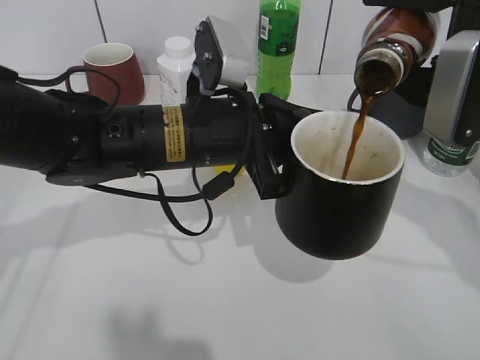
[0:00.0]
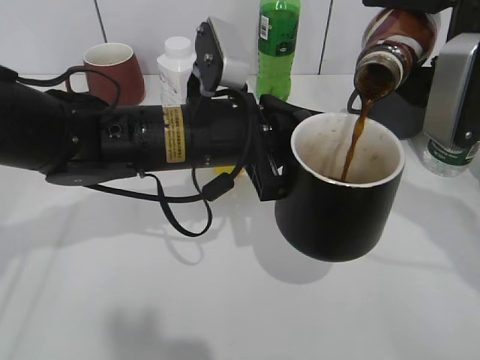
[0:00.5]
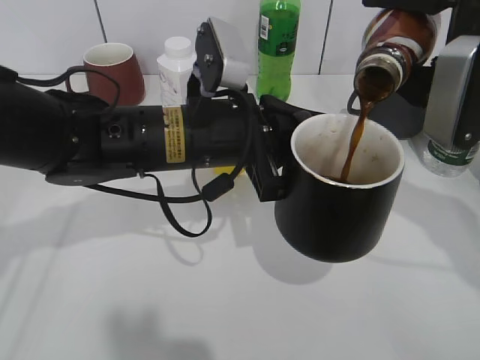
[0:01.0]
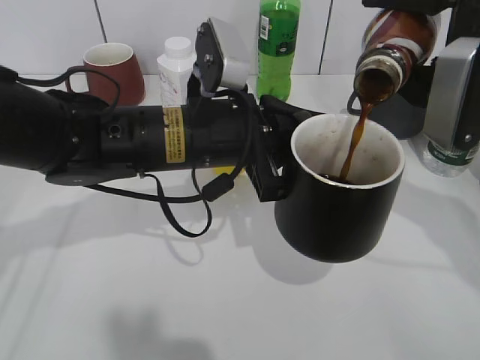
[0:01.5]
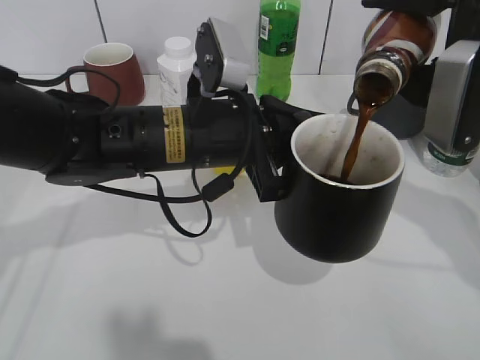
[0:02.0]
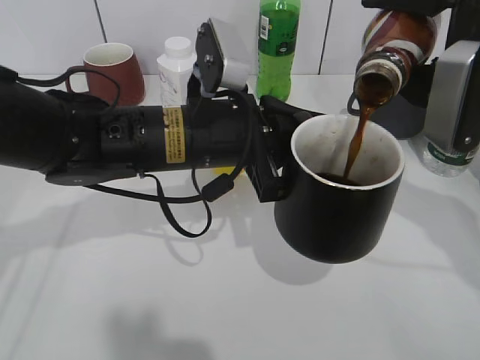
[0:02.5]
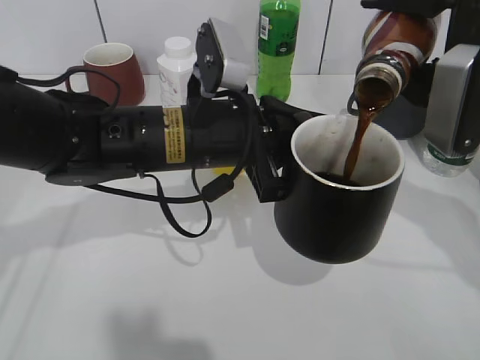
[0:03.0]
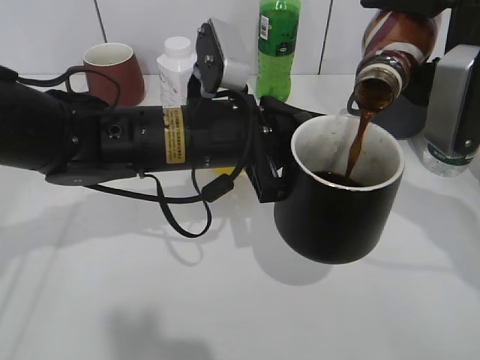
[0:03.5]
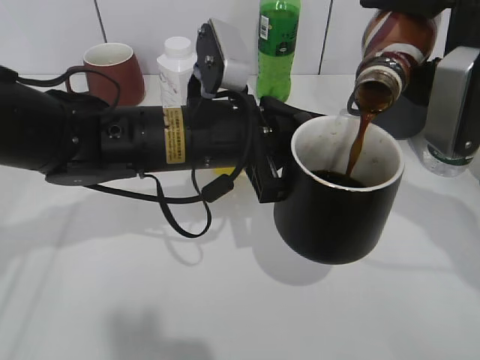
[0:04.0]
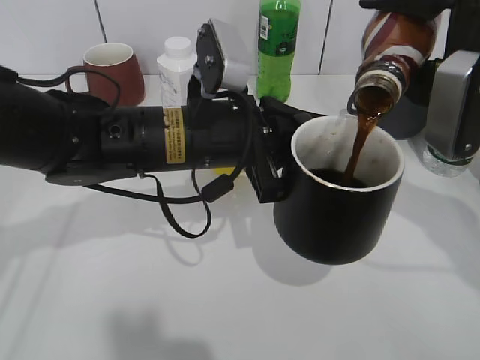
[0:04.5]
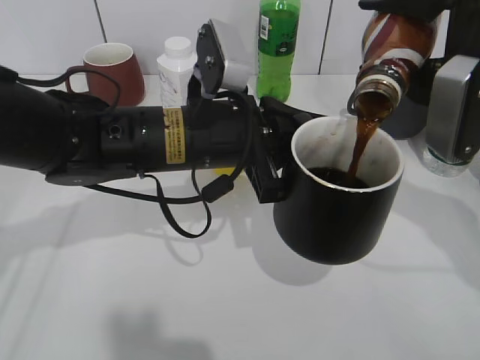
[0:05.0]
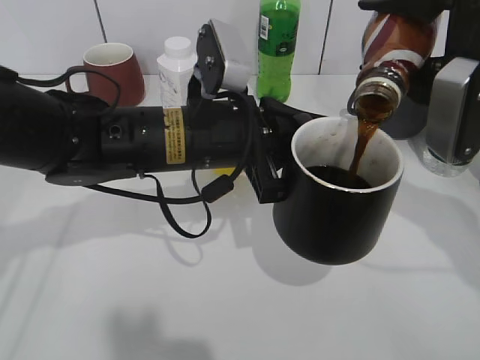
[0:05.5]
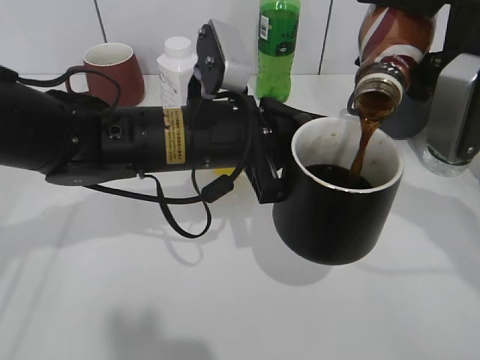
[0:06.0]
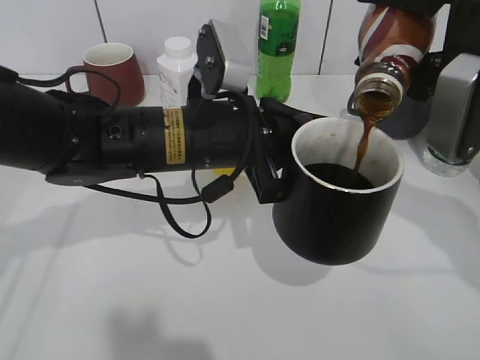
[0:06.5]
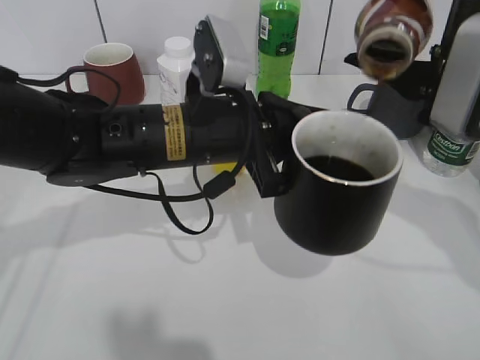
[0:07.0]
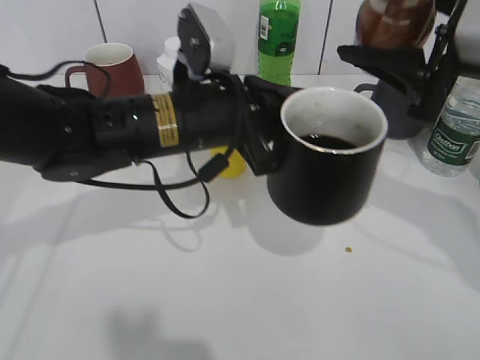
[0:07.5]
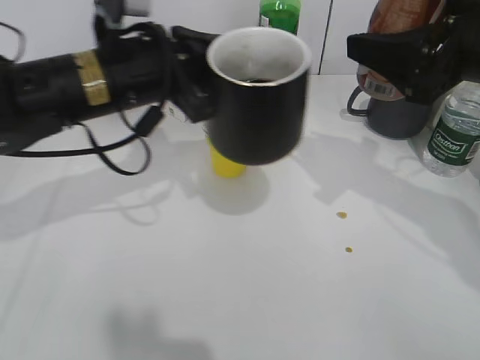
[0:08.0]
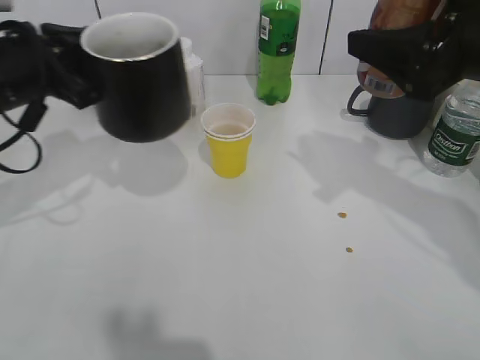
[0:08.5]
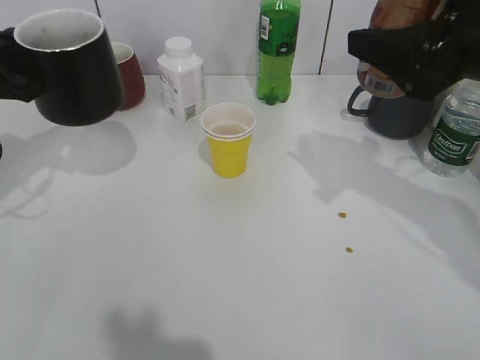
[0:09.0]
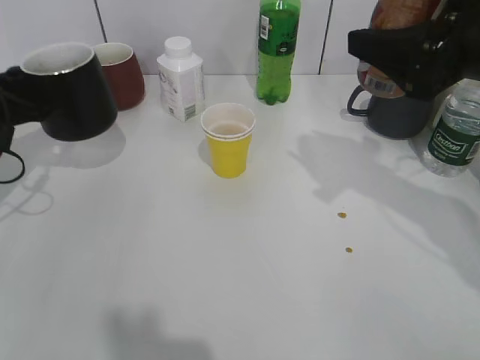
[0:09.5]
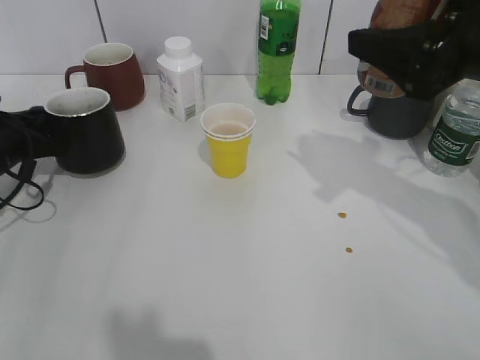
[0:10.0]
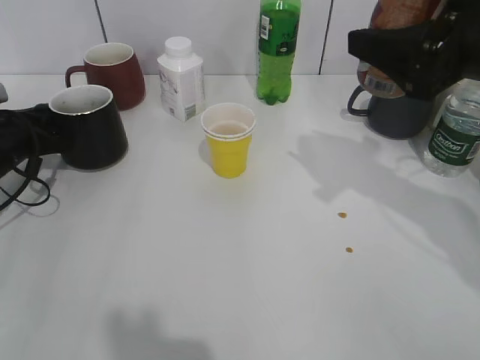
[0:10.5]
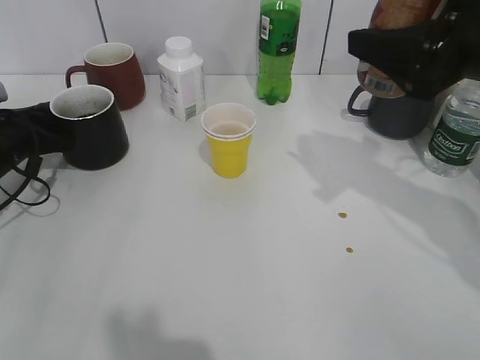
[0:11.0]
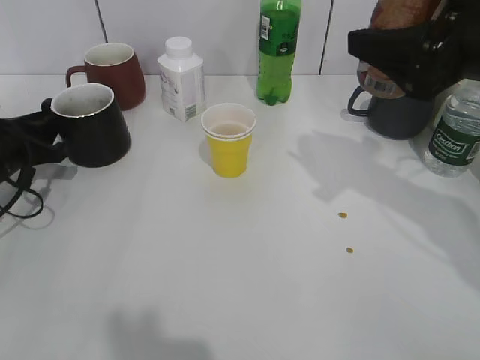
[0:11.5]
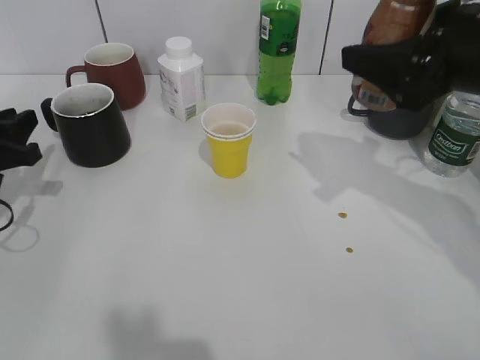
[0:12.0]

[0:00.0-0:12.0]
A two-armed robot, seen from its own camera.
Step, 0:00.0 to 0:07.0: Pour the coffee from bottle to cup with right gripper.
Step, 0:07.5 to 0:11.5: Place the black cup on the table with left gripper.
0:00.0 to 0:02.0: Both grippers stay put.
0:02.0 to 0:04.0: Neither gripper changes place.
0:04.0 to 0:06.0: There are only small adjustments of the grippers.
0:06.0 to 0:08.0: The left gripper goes roughly 5 cm to the left.
0:08.0 to 0:10.0: The left gripper travels to the left and downward by approximately 25 cm.
0:10.0 to 0:12.0: The left gripper moves backward, about 5 cm, and opens up.

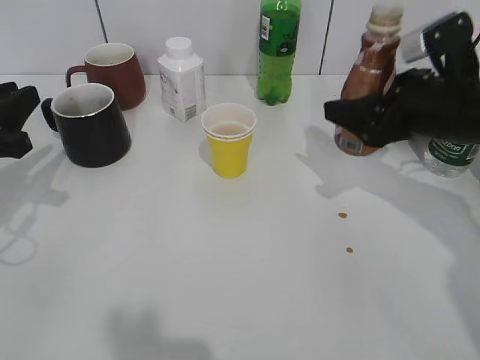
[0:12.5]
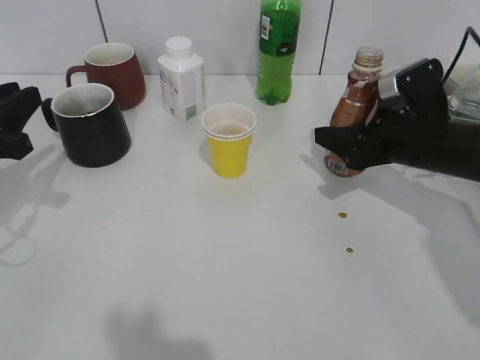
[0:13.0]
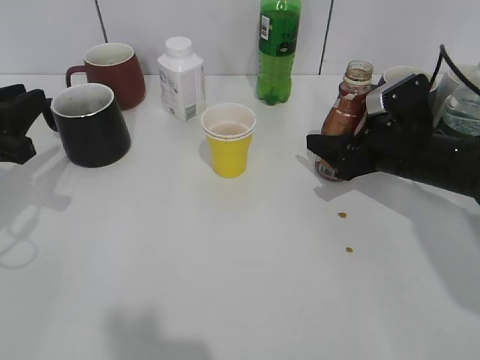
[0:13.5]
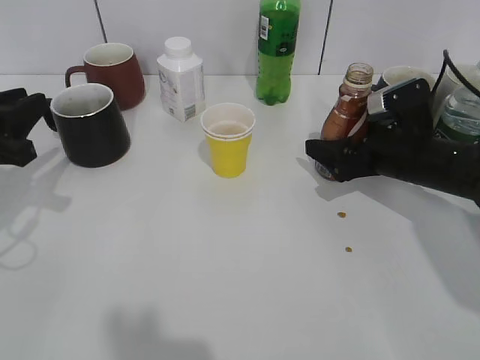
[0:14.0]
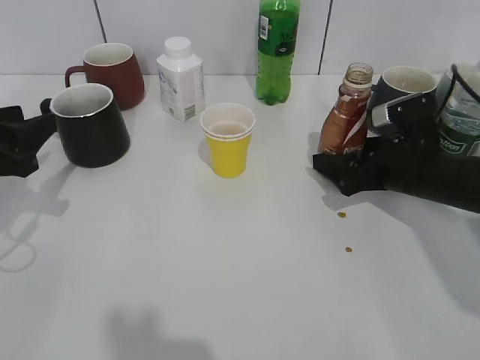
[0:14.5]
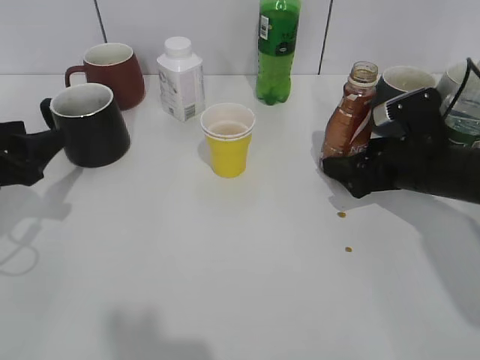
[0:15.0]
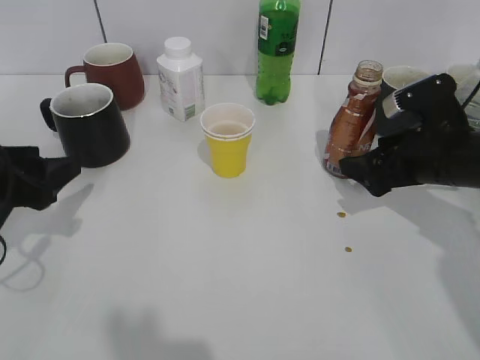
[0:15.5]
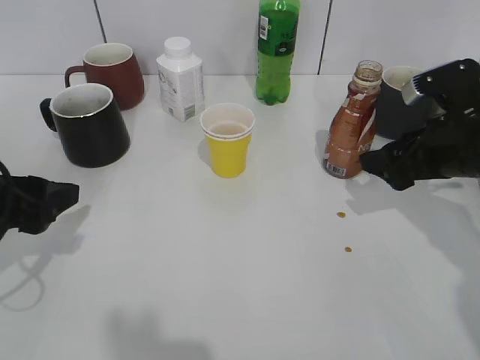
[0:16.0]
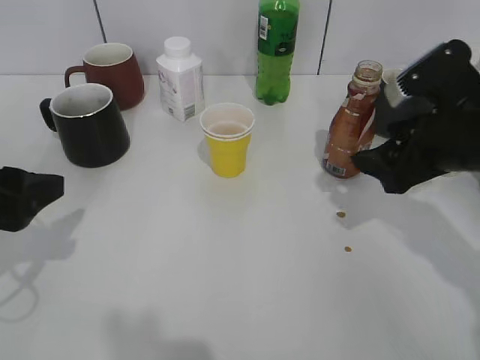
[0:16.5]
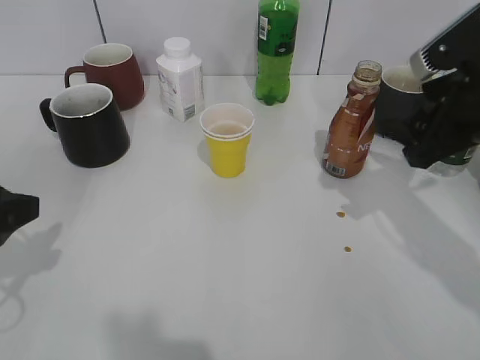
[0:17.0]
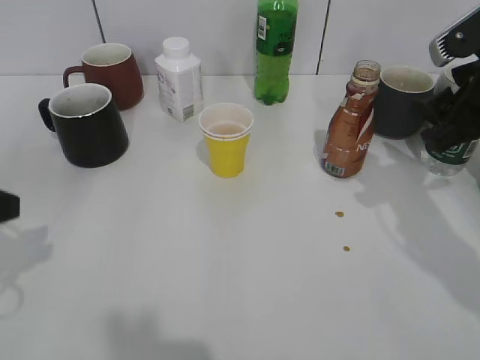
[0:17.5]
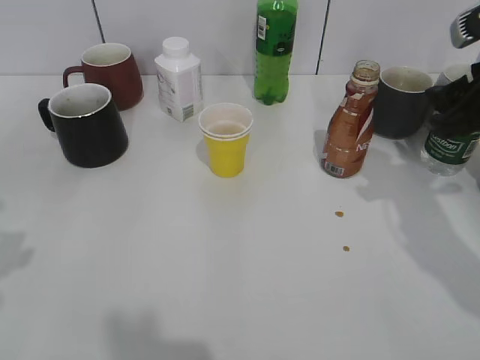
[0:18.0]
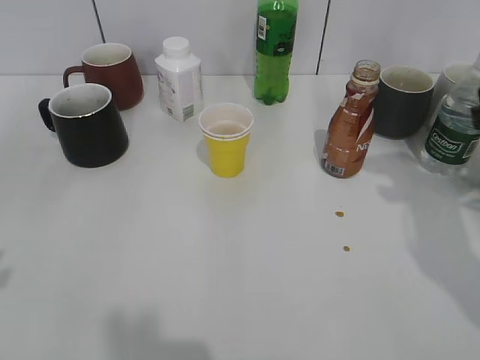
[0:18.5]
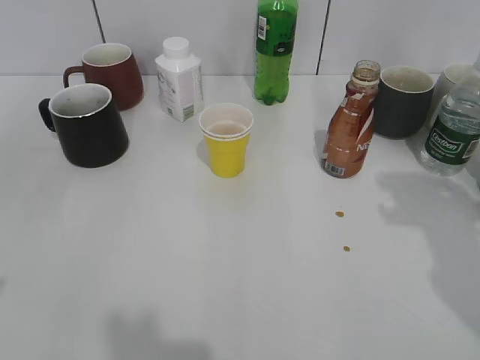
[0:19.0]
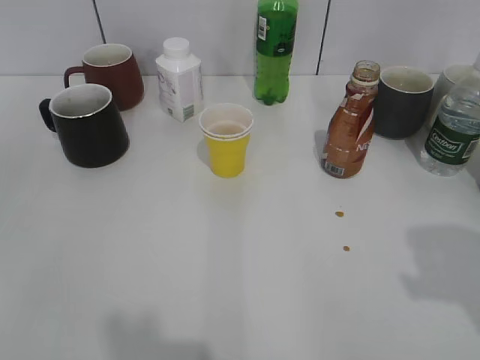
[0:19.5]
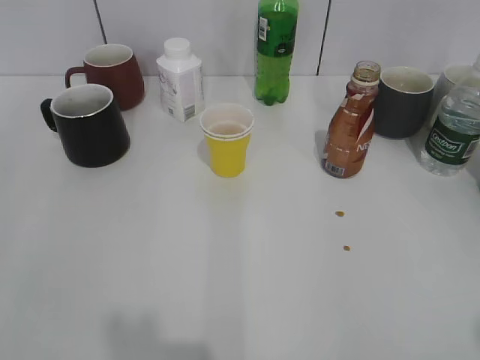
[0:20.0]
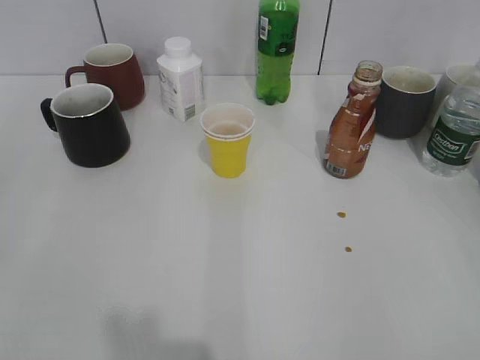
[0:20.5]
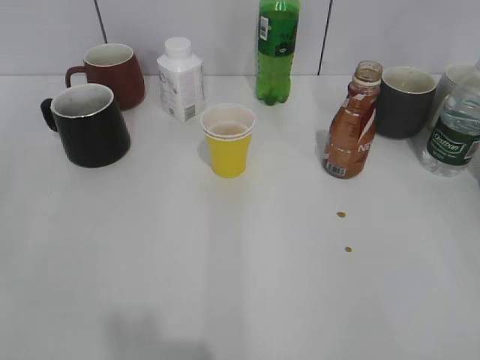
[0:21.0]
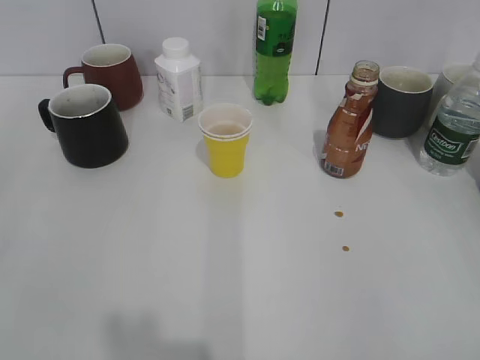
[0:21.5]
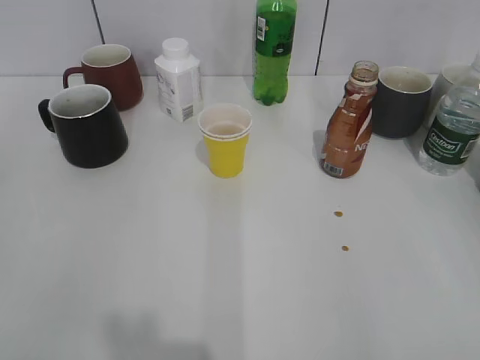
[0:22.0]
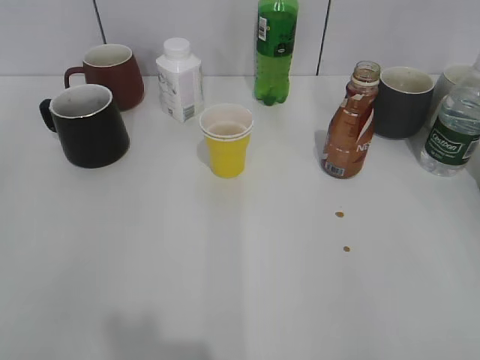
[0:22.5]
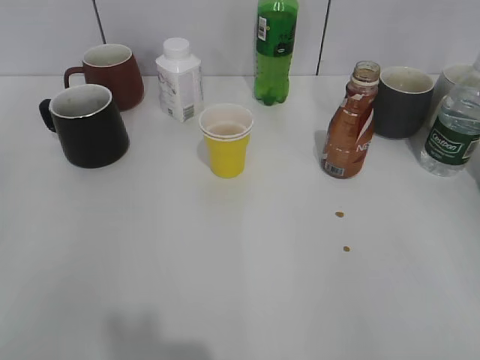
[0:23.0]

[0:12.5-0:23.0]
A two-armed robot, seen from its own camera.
Step, 0:12.5 to 0:15.0: Place the coffee bottle on the table with right gripper.
0:12.5 to 0:14.5: The right gripper goes approximately 10 cm downward, and opens, while the left gripper opens its fingers.
0:14.5 to 0:16.5: The left gripper moves backward, some 5 cm, while the right gripper goes some 10 cm upward and backward, and closes.
0:16.5 to 0:19.0: The right gripper is displaced upward, backward and to the right by roughly 15 cm, and closes its fingers. The left gripper goes approximately 10 cm upward and backward.
0:19.0 to 0:21.0: The right gripper is displaced backward by approximately 20 cm; the left gripper shifts approximately 10 cm backward.
0:21.0 to 0:23.0: The grippers make only small movements.

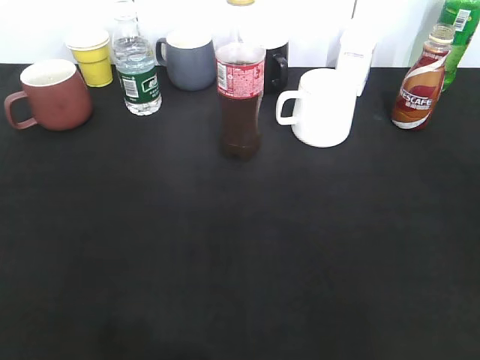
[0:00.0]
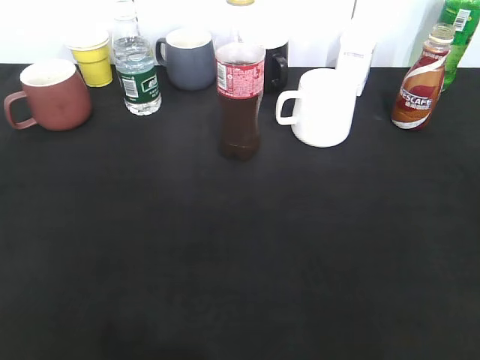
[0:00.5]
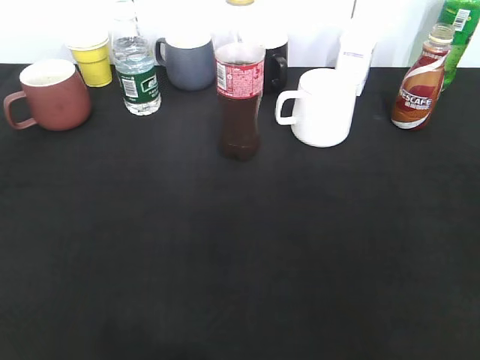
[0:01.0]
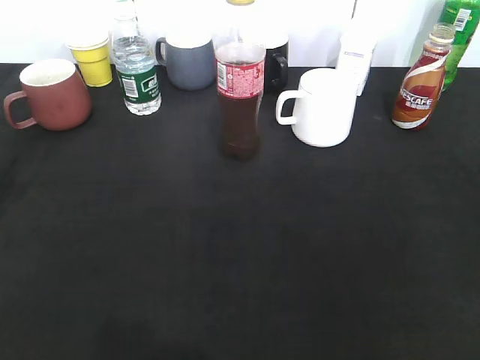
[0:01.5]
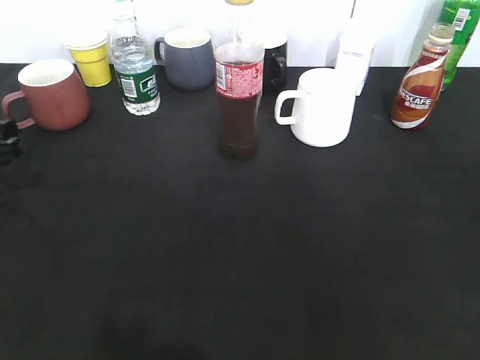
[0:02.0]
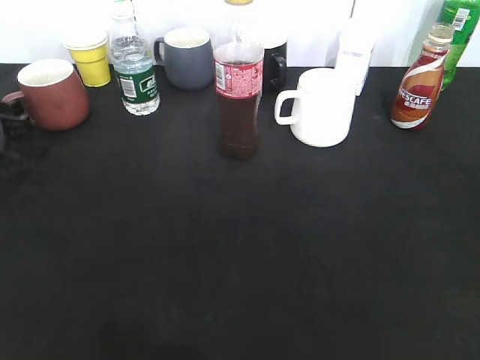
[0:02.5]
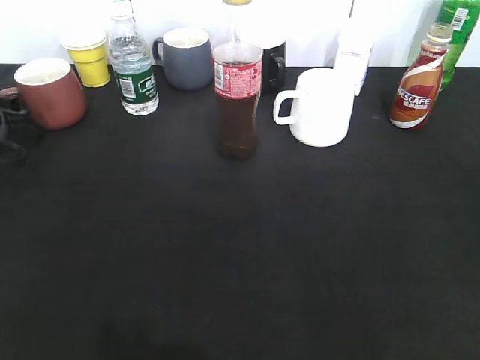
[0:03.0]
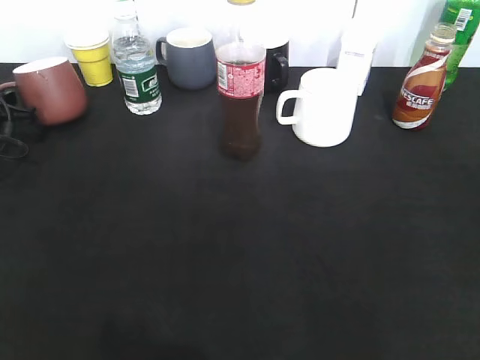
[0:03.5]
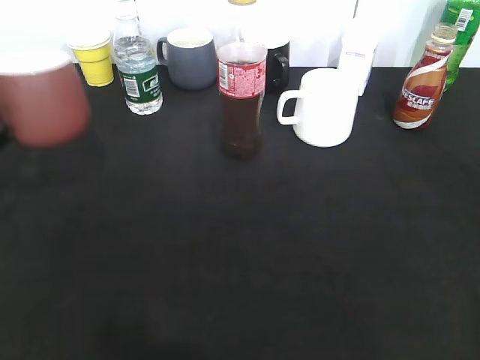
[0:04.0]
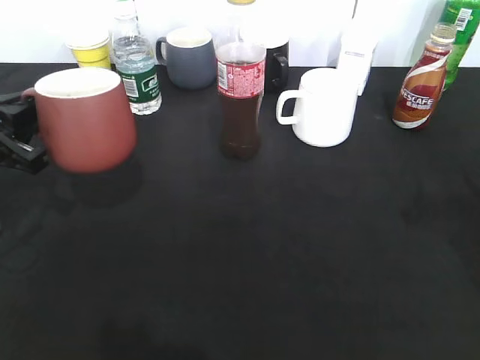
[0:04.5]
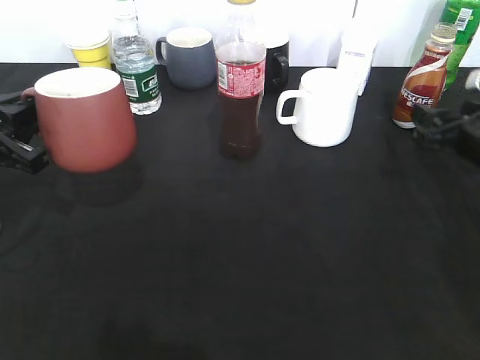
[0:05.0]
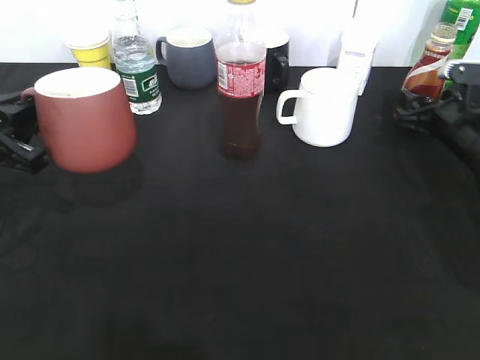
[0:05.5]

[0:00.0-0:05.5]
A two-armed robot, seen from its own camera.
Step, 0:02.0 to 0:03.5: Grasp the red cup with left gripper.
Step, 0:04.0 to 0:04.5: Lift the red cup with left gripper.
0:00.0 to 0:02.0: The left gripper is displaced forward and downward by some 30 cm.
0:02.0 to 0:03.5: The left gripper goes about 10 cm forward, and closes.
0:03.5 to 0:05.5: The right gripper moves forward and downward, some 40 cm, and opens up. Meanwhile the left gripper heads backward, to the right and upward, covering roughly 15 cm.
